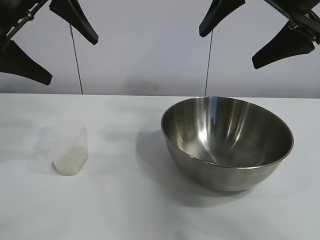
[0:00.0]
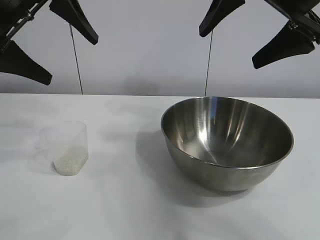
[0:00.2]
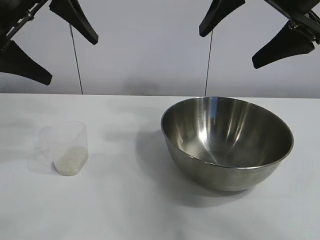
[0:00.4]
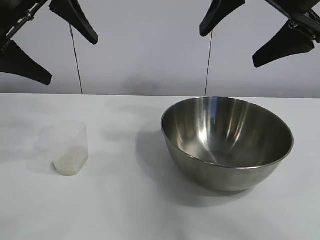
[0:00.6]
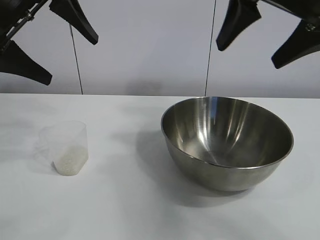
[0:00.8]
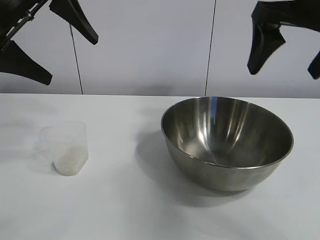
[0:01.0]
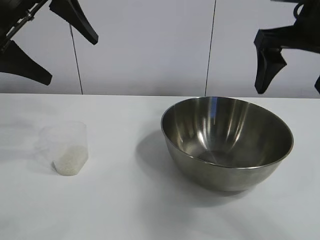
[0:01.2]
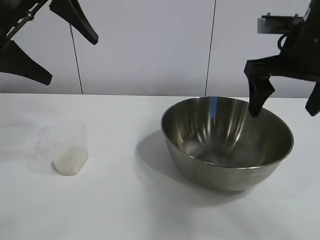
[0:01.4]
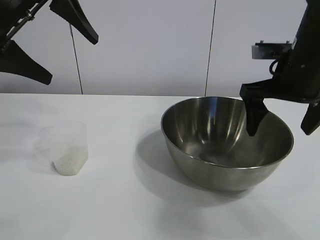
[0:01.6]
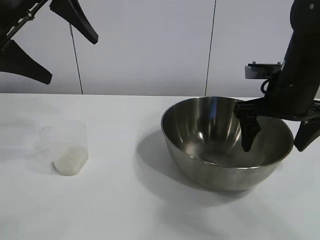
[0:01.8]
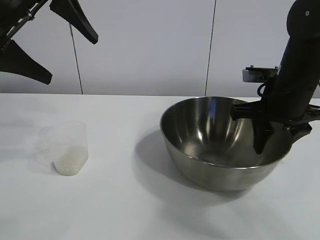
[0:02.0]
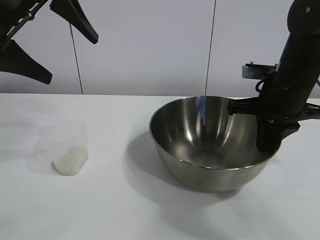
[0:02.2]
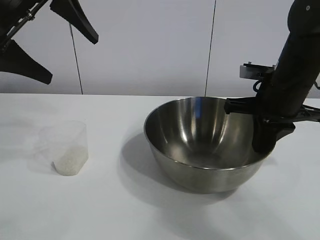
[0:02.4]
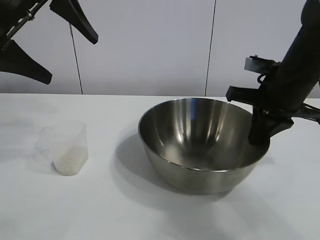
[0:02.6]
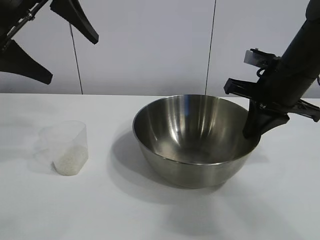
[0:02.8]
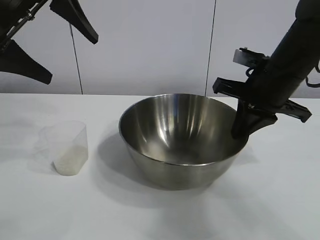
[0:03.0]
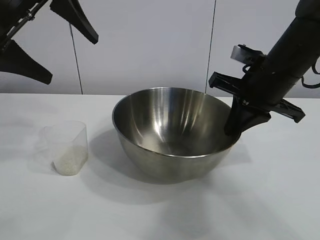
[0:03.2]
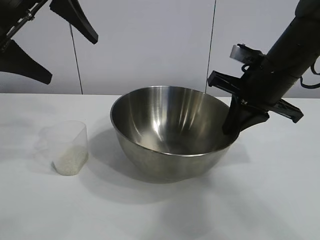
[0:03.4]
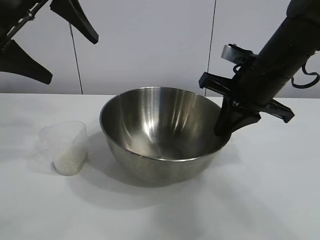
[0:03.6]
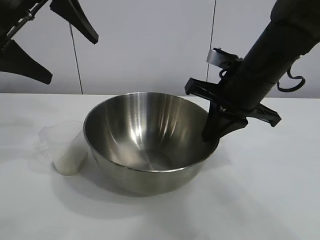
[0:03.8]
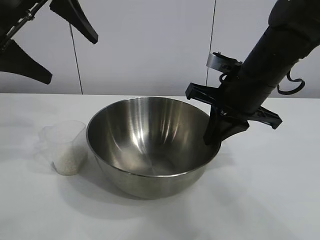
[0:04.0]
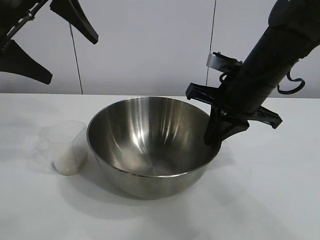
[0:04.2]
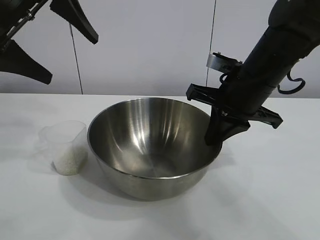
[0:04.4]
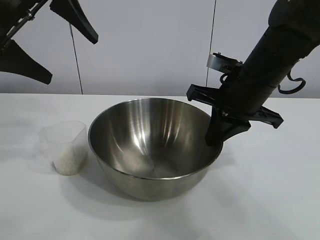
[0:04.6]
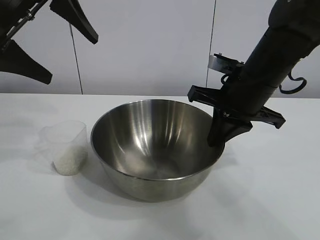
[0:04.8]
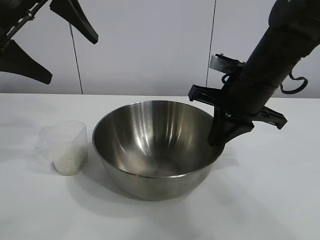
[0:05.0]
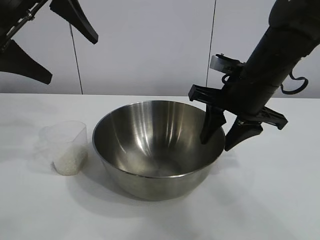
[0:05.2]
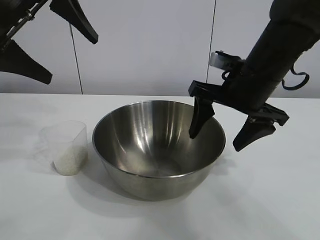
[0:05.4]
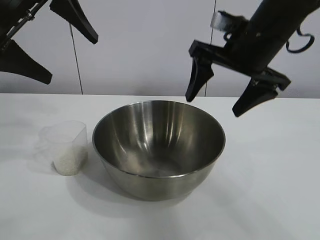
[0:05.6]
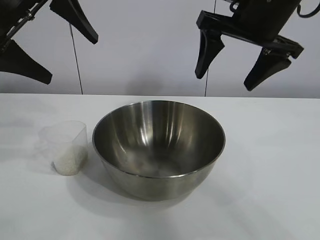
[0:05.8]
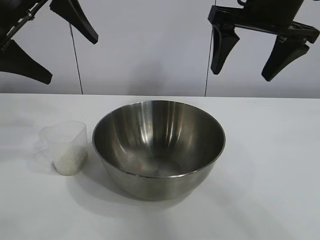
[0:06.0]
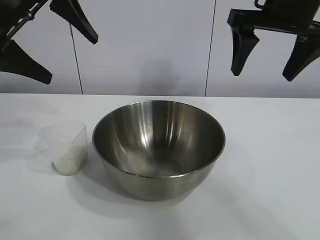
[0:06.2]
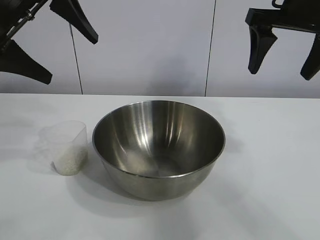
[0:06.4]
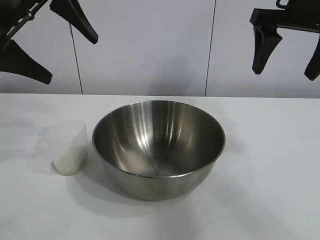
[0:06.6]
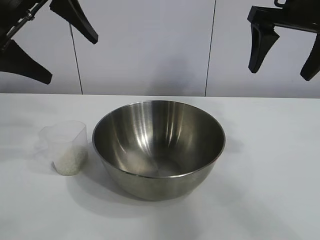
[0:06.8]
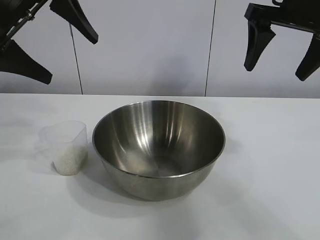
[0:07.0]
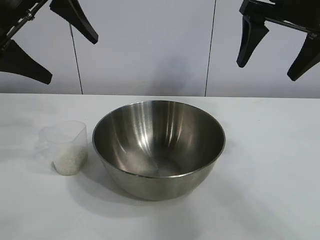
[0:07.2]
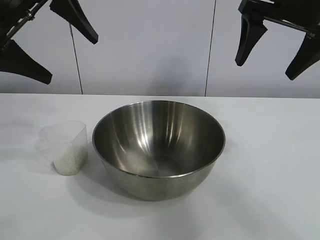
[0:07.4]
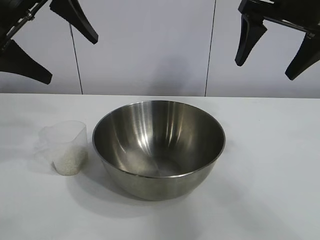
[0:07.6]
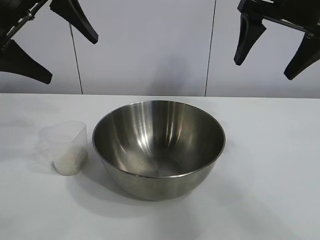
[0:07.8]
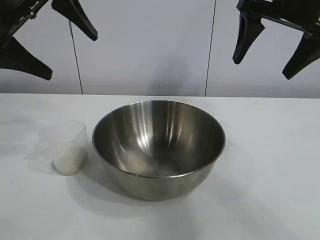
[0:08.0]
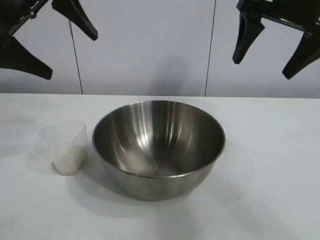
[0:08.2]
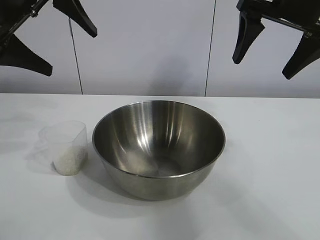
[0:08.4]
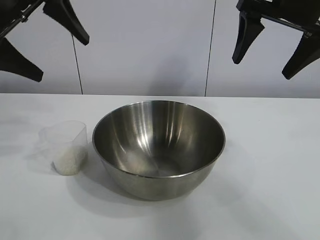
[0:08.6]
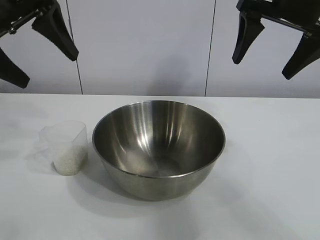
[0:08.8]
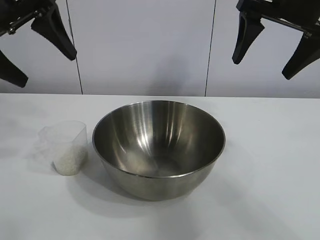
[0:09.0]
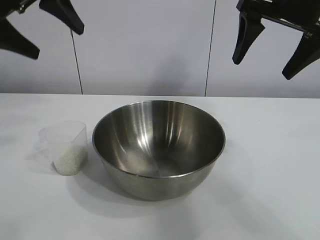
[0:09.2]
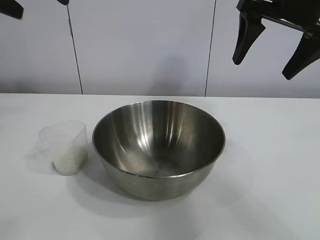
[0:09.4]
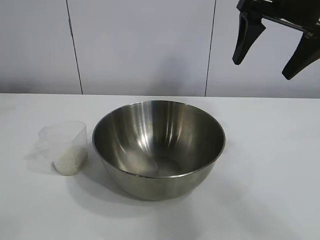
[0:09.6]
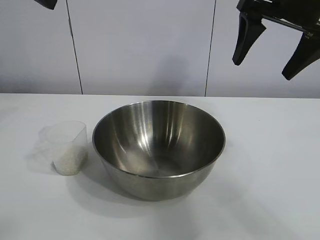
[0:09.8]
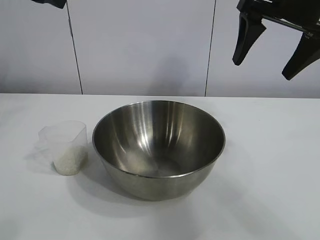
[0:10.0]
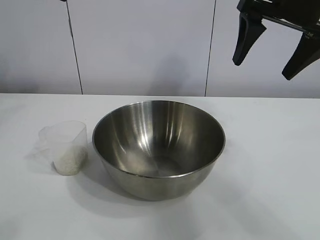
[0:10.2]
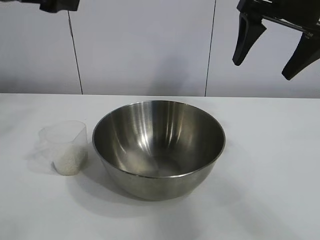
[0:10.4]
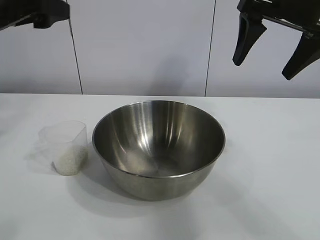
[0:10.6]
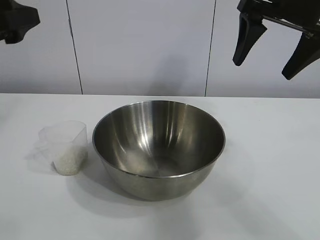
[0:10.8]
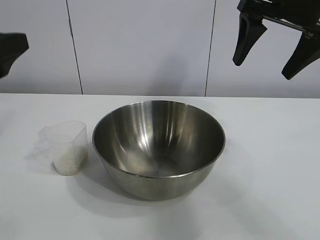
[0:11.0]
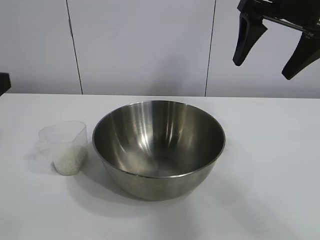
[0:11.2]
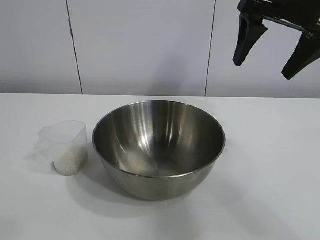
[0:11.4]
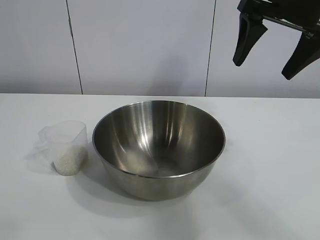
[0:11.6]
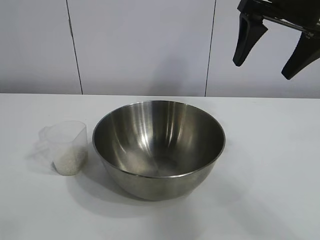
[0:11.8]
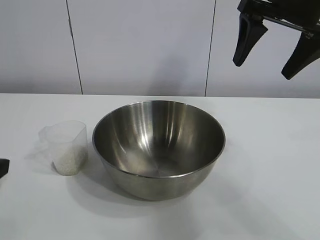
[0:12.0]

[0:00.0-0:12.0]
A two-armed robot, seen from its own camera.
Task of the whole recording: the right gripper grasp the rice container and place it in the center of the table, the left gripper grasp the rice scoop and pour the rice into the rice container.
Step, 0:00.6 to 0:05.0: Move the bowl in the center of view with right gripper.

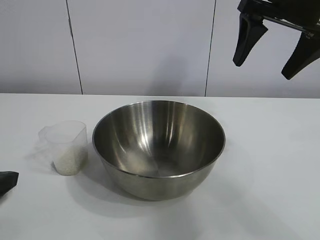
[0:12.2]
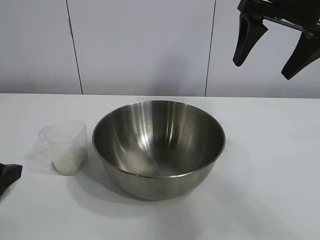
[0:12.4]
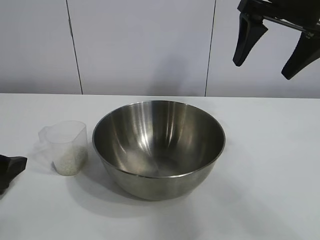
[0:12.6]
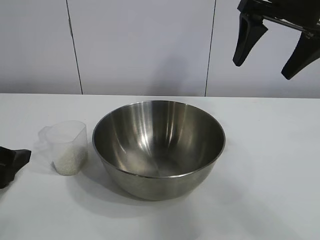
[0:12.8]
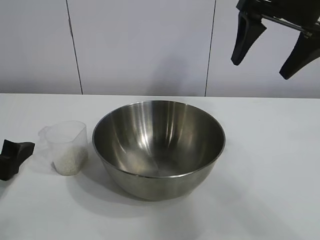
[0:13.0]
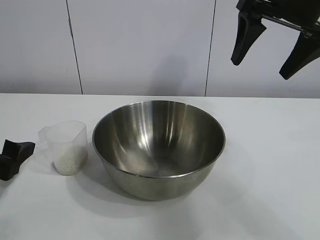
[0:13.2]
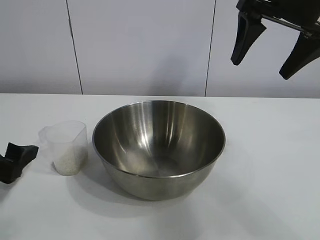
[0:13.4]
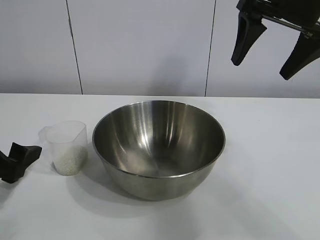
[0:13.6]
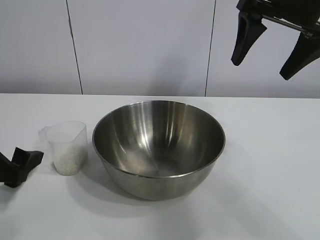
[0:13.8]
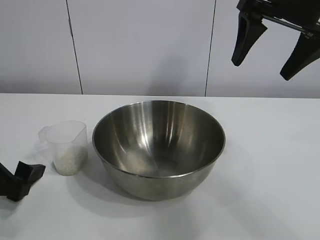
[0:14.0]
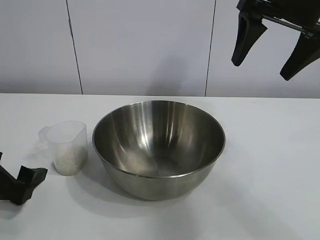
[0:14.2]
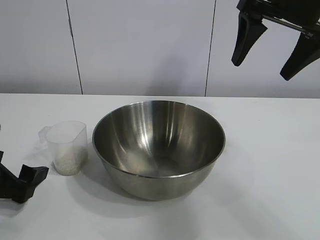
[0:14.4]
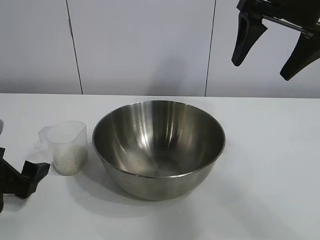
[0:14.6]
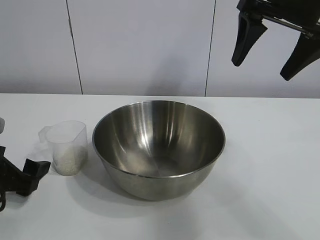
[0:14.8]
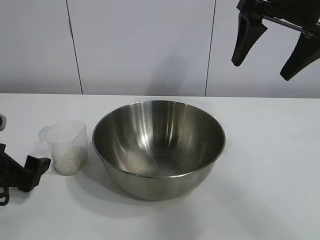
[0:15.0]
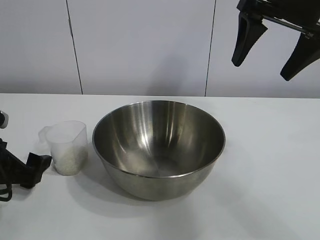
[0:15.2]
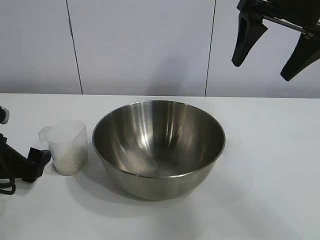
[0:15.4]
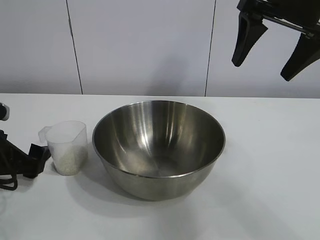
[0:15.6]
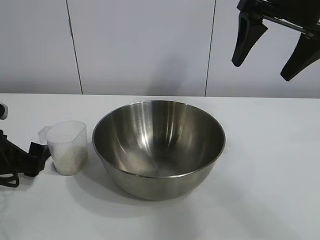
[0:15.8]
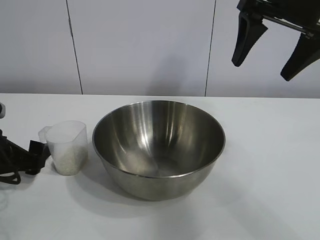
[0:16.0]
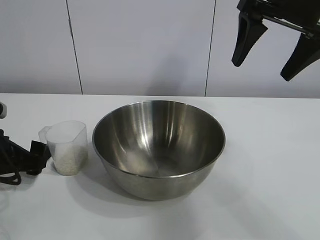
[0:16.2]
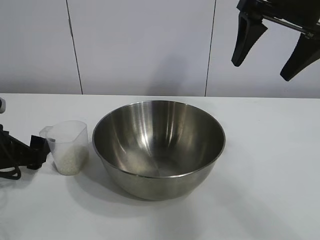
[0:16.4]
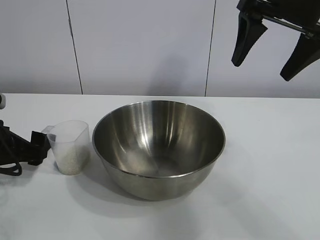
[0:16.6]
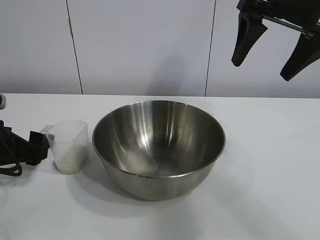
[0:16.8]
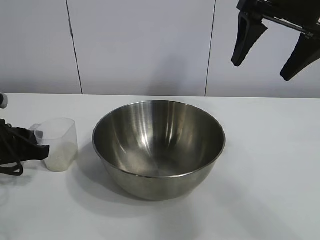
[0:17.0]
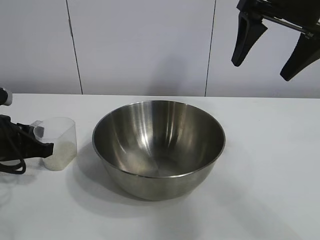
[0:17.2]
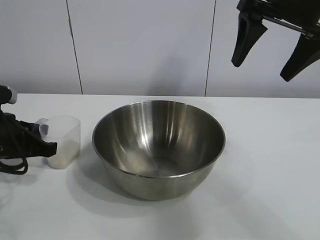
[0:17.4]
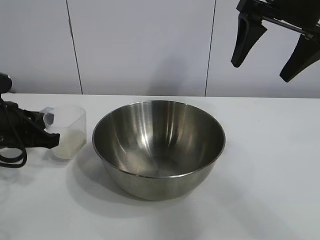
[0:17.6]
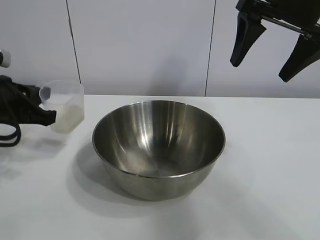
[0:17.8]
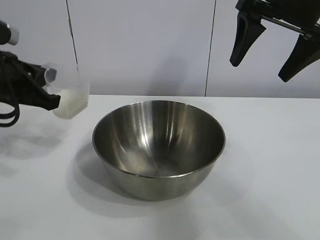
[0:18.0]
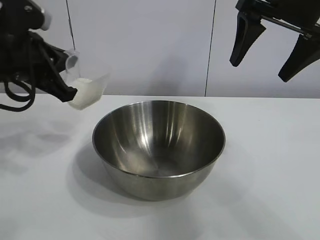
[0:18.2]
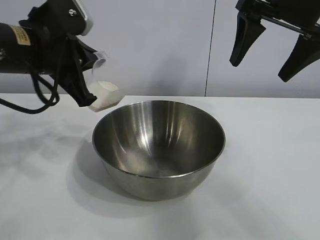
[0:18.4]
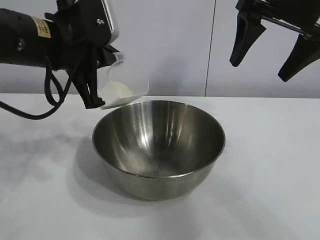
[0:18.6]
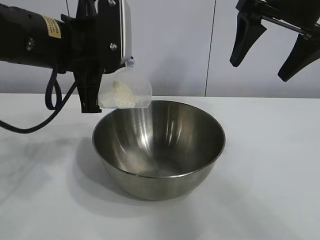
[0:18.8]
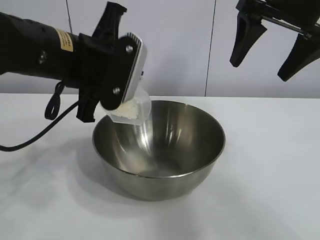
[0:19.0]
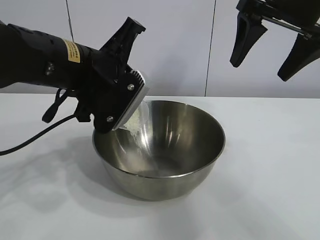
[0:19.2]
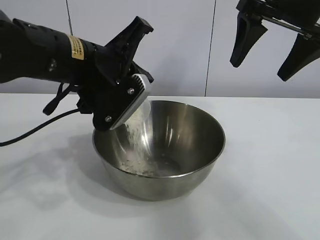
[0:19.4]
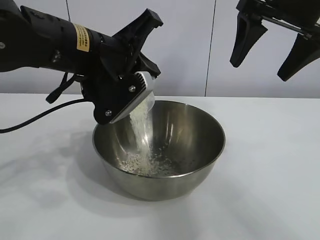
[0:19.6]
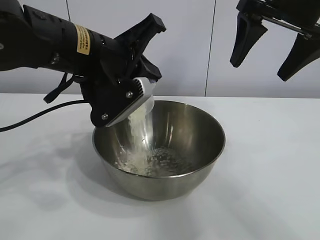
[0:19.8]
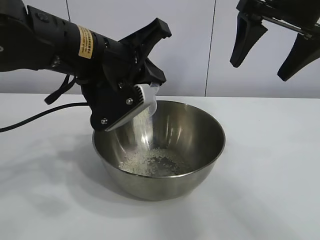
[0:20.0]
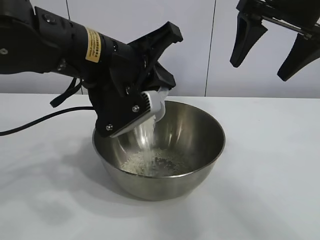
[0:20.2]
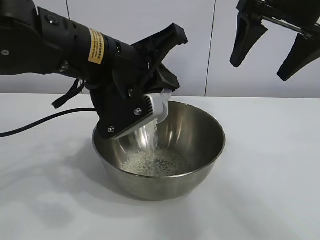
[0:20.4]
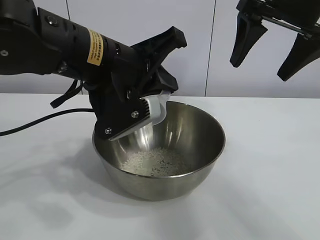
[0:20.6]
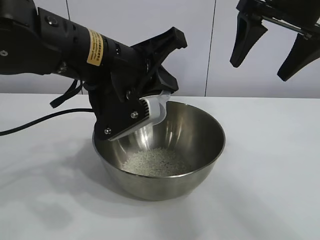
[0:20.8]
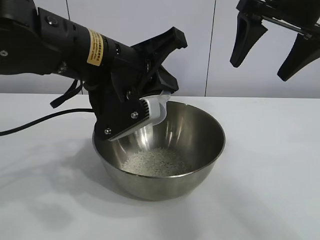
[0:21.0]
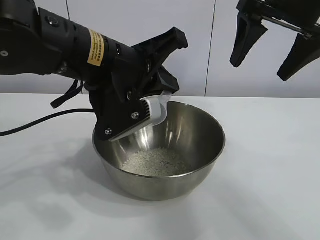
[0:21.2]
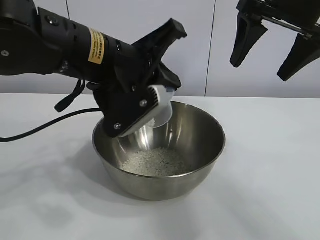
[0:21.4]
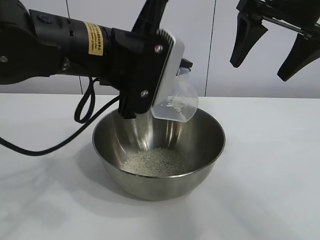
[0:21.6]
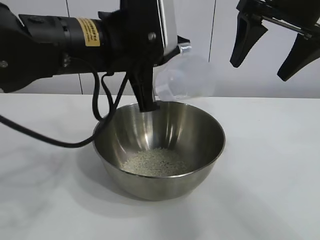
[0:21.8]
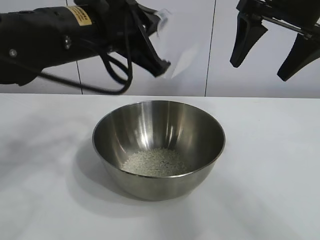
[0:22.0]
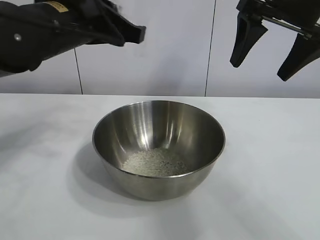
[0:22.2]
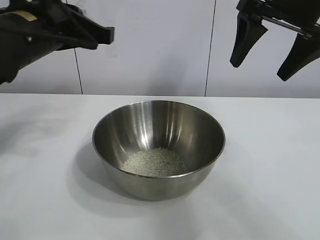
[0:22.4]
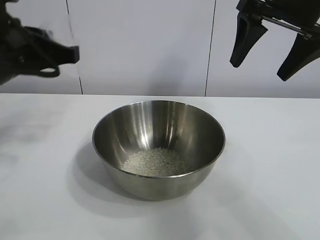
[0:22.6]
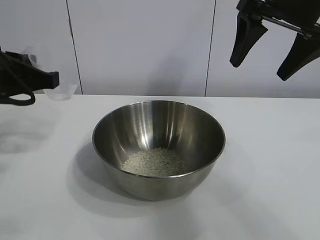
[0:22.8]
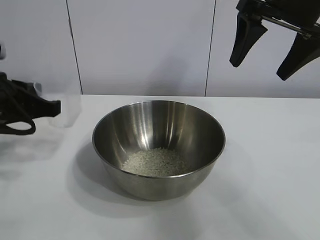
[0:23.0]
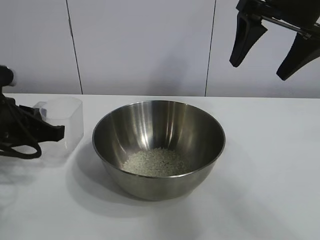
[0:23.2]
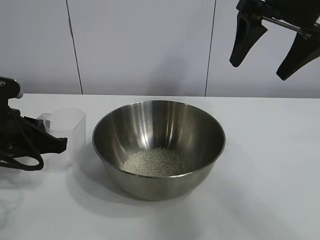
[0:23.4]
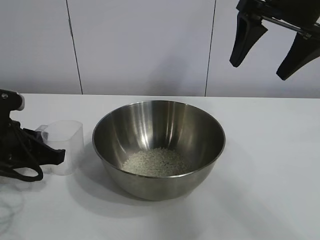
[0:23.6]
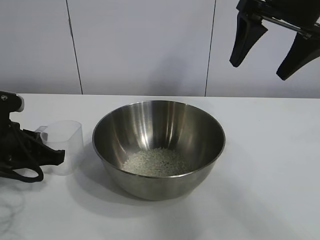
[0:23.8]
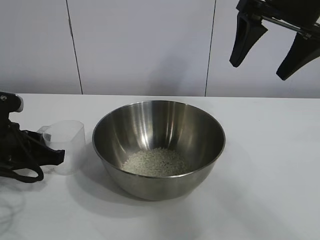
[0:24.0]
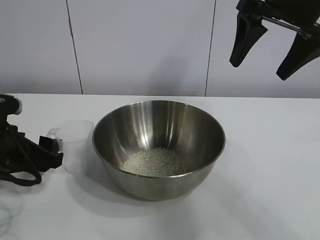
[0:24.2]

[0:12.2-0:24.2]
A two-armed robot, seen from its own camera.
Task of the whole recording: the right gripper grasp the rice container and place it in the center of the table, the left gripper grasp the rice scoop and pour the rice into the rice container.
Step, 0:12.2 to 0:17.2: Grasp the cup with rice in it with left gripper.
Step, 0:17.6 to 0:21.0: Pour the rice from the cup into the bowl with the left gripper.
Step, 0:21.2 to 0:24.2: Place the cup on the table with the left gripper.
